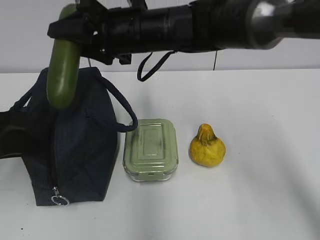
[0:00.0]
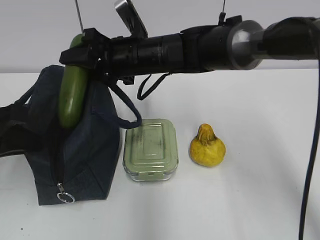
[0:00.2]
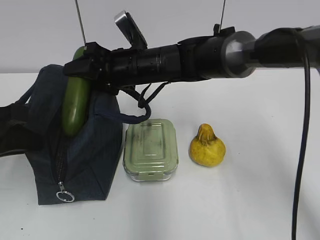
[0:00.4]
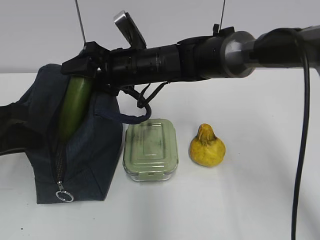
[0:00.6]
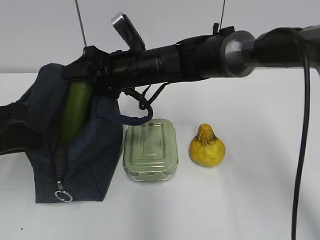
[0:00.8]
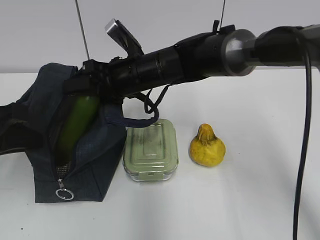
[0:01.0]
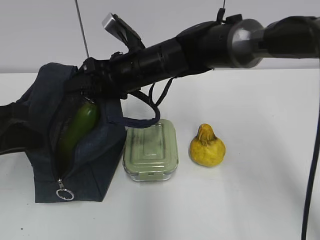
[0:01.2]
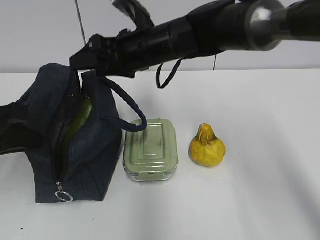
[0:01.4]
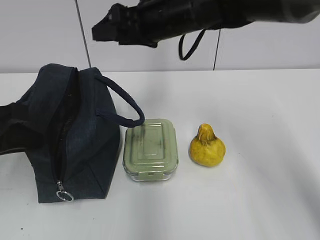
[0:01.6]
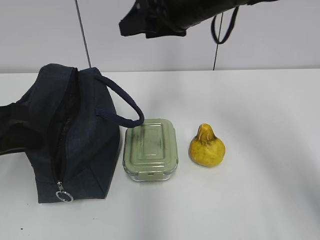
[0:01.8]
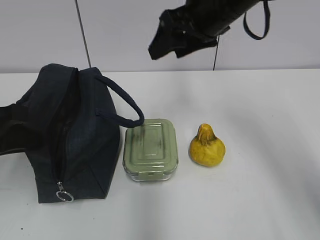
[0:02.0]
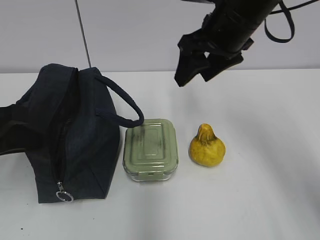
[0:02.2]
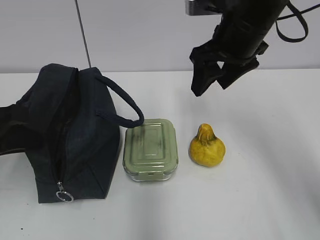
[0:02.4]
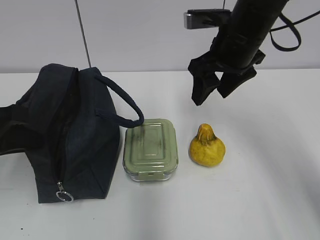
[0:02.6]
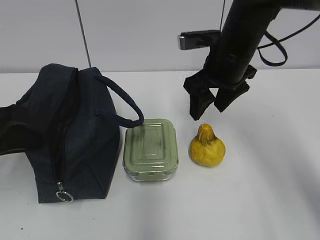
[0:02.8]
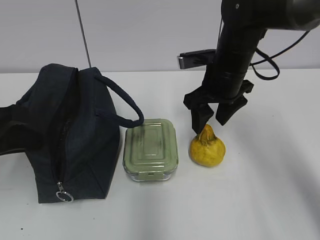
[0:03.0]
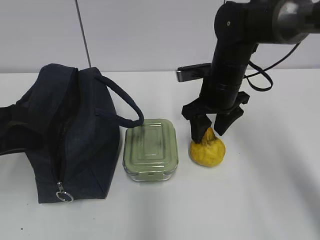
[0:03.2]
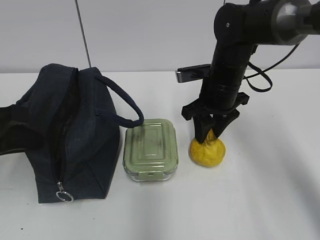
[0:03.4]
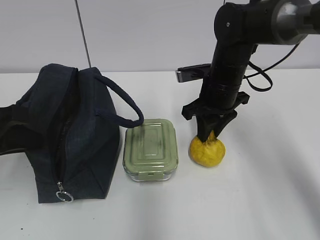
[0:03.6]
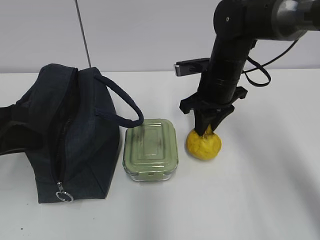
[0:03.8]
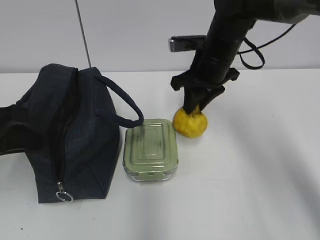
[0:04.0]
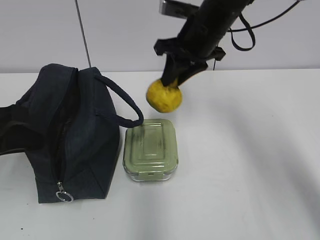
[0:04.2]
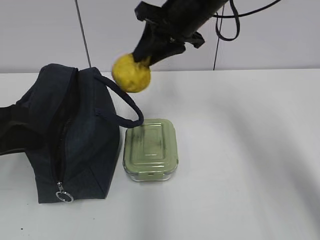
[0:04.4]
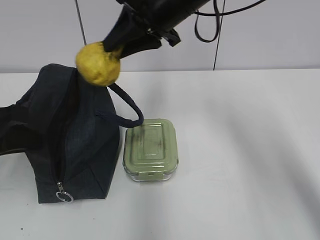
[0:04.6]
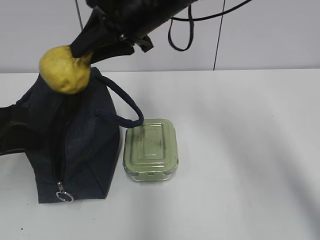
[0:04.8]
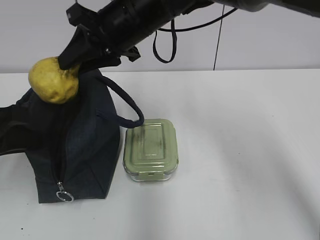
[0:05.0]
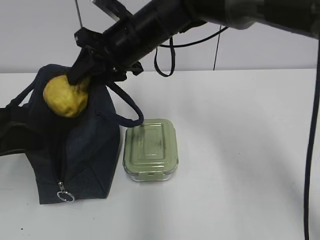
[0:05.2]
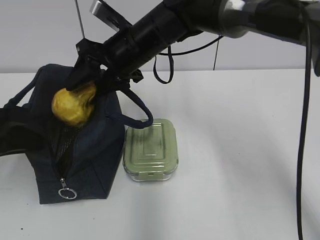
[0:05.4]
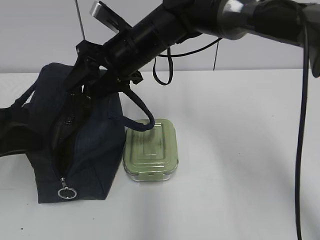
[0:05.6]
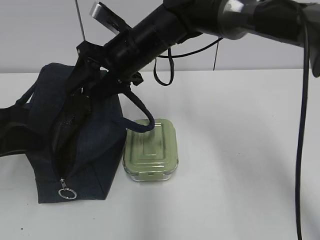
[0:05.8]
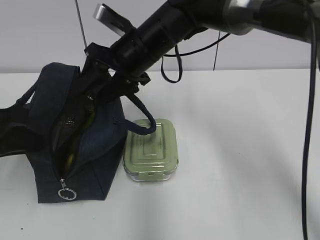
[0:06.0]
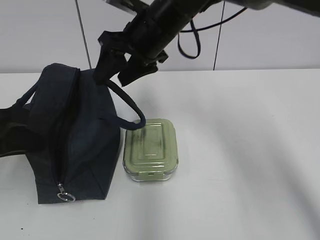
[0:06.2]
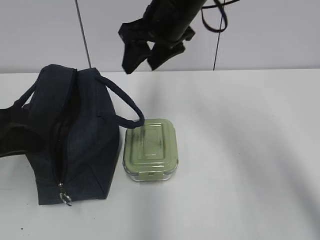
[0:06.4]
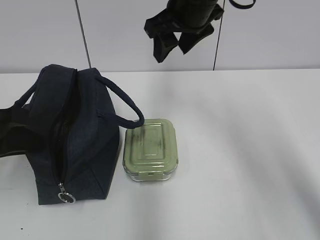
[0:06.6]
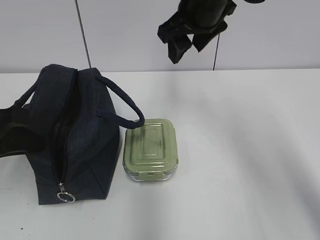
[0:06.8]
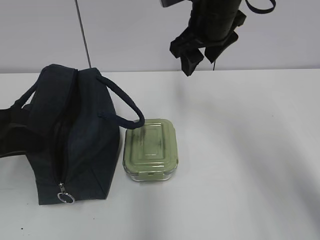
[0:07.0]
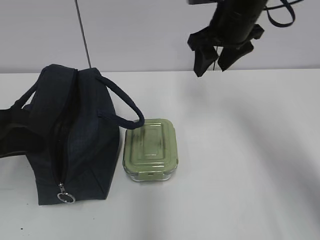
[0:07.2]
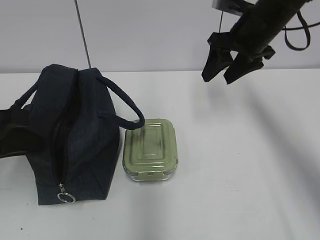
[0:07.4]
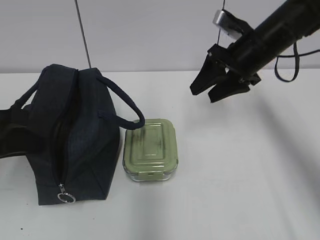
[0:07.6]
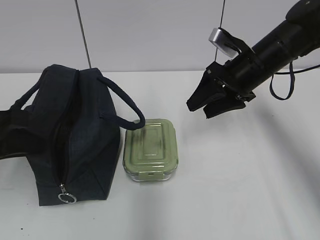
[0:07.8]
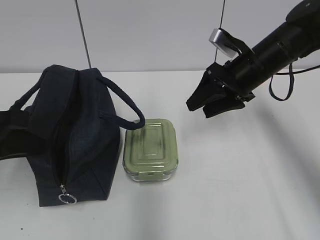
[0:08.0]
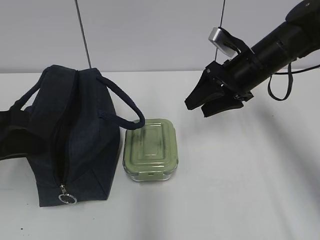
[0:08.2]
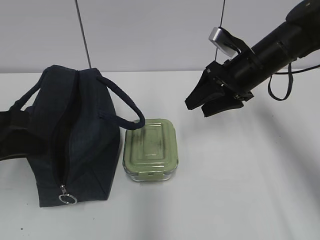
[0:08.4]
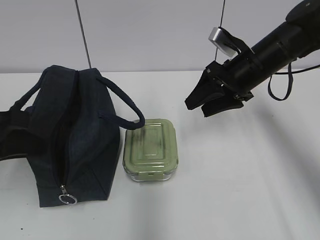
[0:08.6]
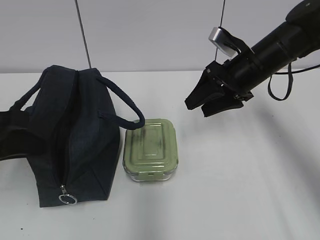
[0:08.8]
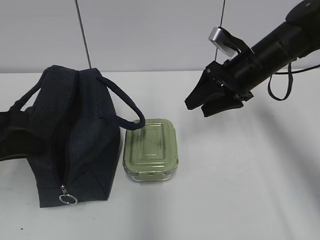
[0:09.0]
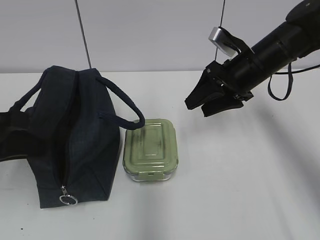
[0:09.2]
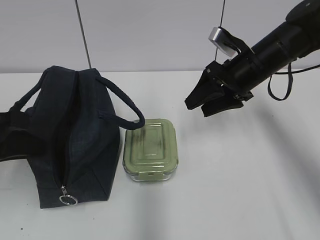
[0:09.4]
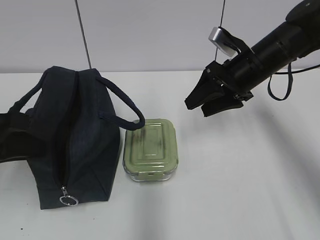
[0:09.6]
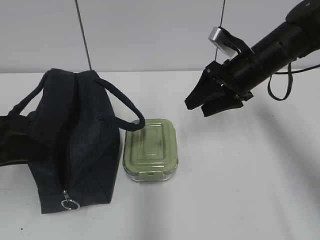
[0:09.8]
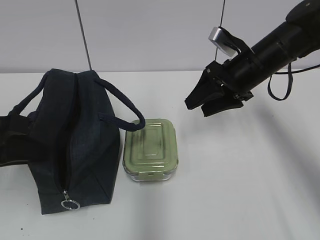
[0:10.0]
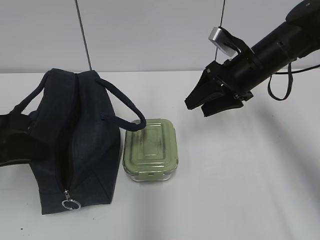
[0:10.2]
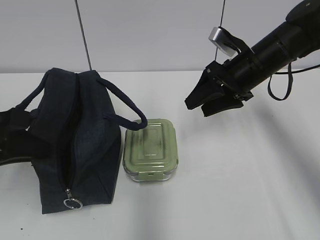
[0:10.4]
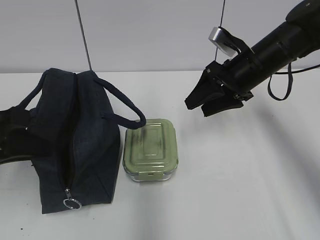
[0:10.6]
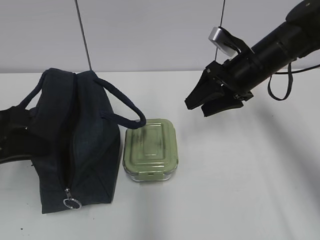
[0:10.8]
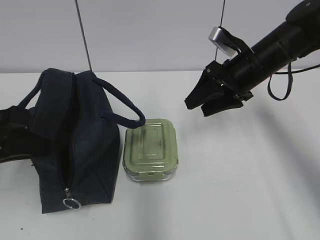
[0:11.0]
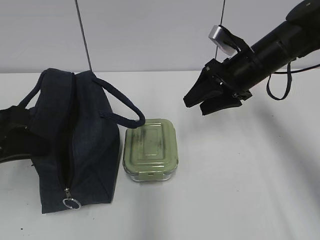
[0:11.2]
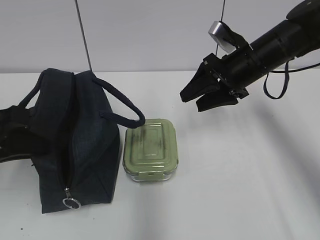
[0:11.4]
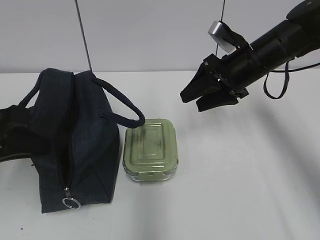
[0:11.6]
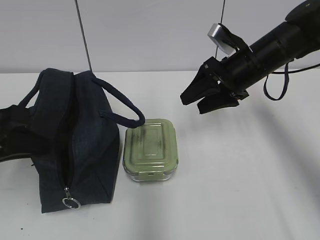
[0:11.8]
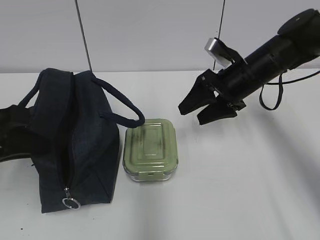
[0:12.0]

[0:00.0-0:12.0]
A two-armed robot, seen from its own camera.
Step, 0:00.4 to 0:01.2: Place it into the bag with your right hand.
Step, 0:01.6 to 0:03.6: Grab the pear with your right hand.
Step, 0:03.8 to 0:05.4: Place it into the bag with your right hand.
0:00.0 to 0:01.6: The right gripper goes approximately 5 cm to the right, and travels downward and back again, roughly 5 cm each way.
0:01.6 to 0:03.0: The right gripper heads downward and to the right, covering approximately 10 cm.
0:03.0 to 0:04.4: The right gripper travels upward and to the left by approximately 10 cm, and closes up.
0:04.4 to 0:06.0: The right gripper is displaced to the left and downward by roughly 10 cm, and opens up.
0:06.0 to 0:07.6: The right gripper moves to the right, some 20 cm.
0:07.6 to 0:09.0: The grippers make only small movements.
0:09.0 to 0:10.4: The two grippers keep their place.
0:10.4 to 0:12.0: There are only small adjustments of the grippers.

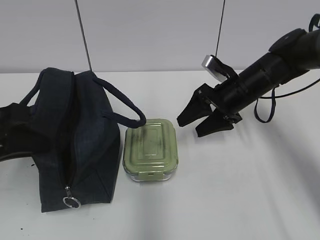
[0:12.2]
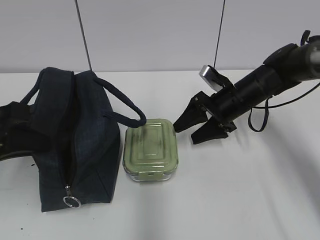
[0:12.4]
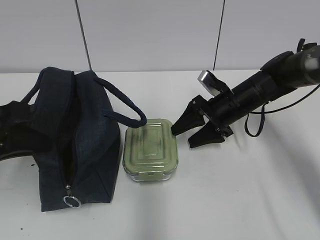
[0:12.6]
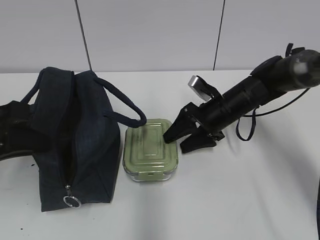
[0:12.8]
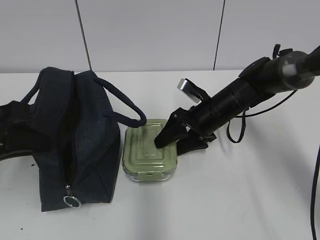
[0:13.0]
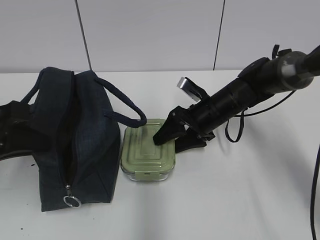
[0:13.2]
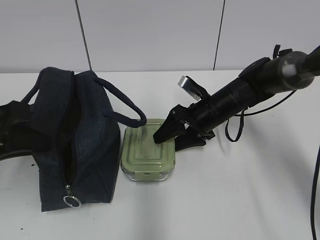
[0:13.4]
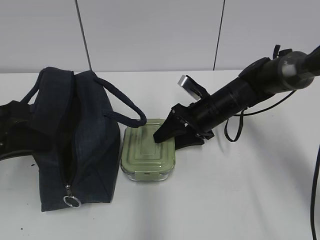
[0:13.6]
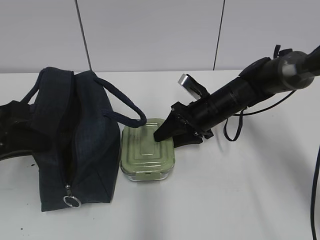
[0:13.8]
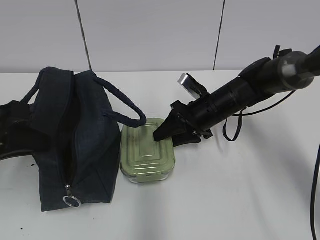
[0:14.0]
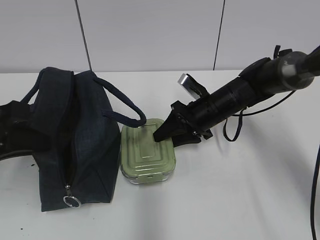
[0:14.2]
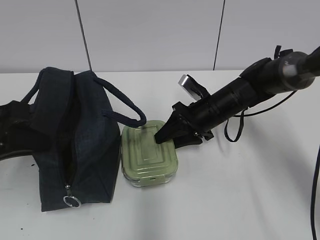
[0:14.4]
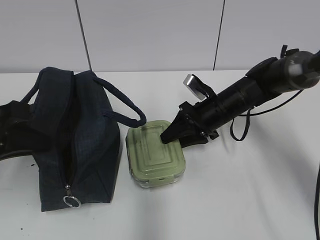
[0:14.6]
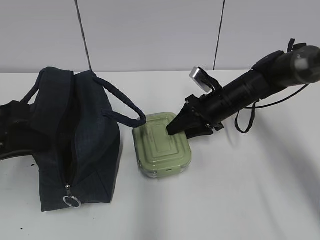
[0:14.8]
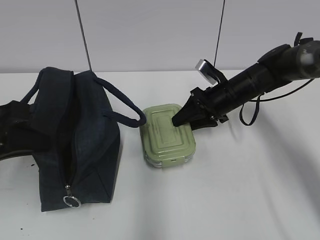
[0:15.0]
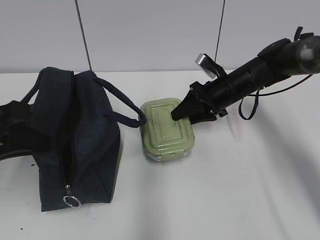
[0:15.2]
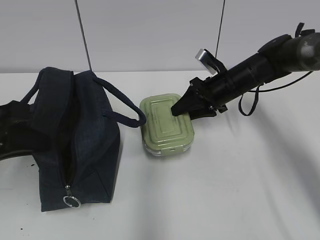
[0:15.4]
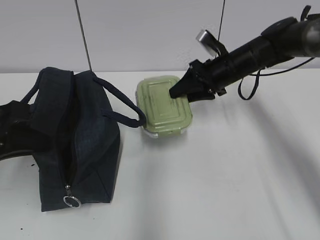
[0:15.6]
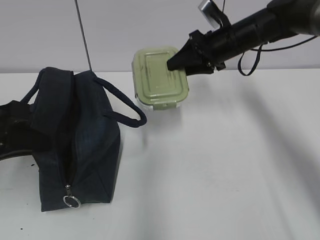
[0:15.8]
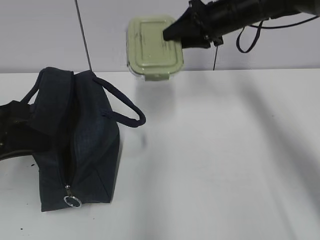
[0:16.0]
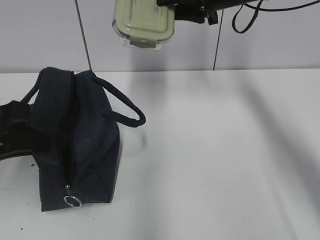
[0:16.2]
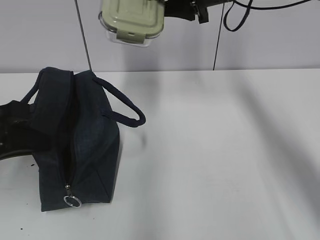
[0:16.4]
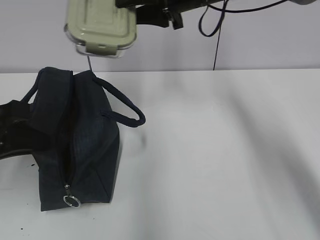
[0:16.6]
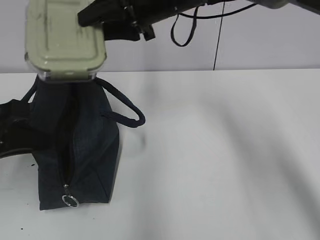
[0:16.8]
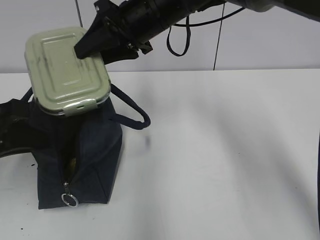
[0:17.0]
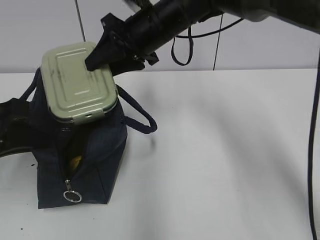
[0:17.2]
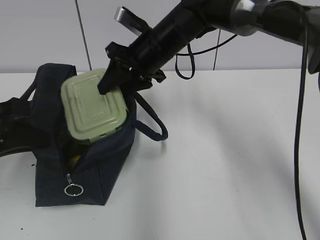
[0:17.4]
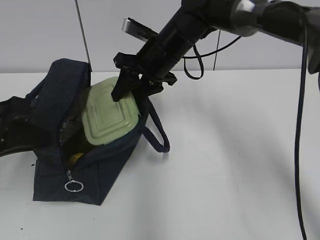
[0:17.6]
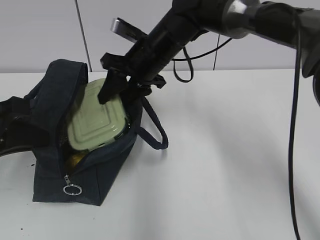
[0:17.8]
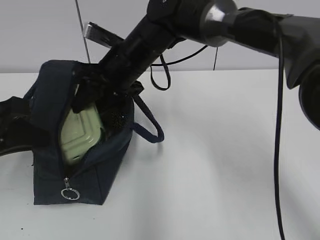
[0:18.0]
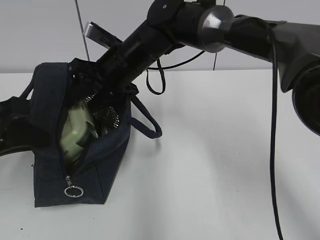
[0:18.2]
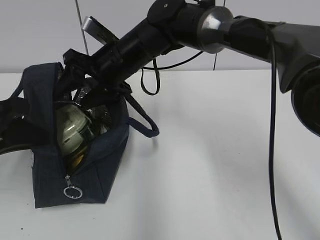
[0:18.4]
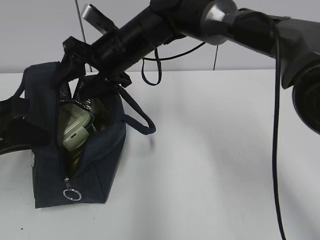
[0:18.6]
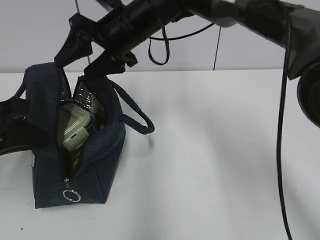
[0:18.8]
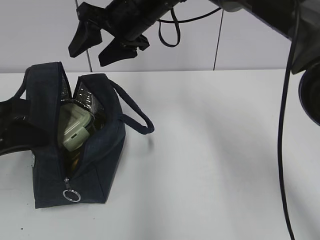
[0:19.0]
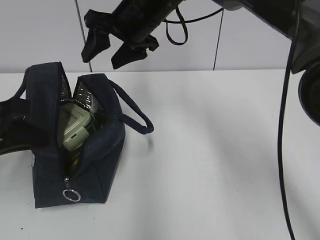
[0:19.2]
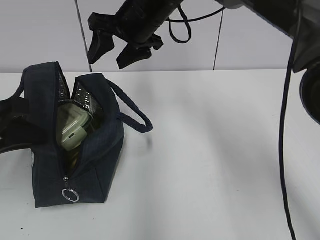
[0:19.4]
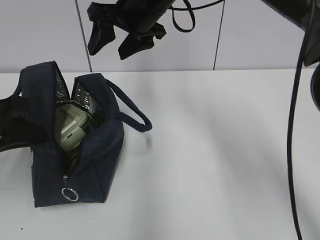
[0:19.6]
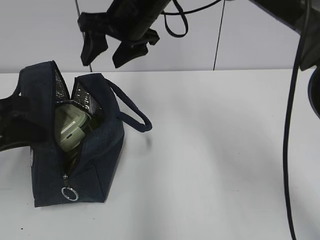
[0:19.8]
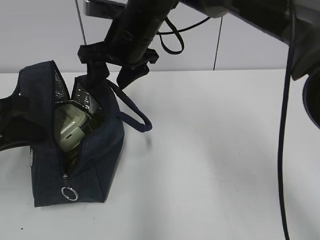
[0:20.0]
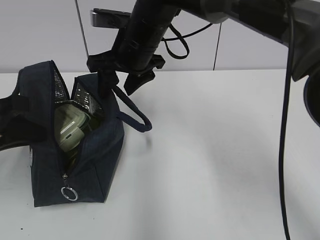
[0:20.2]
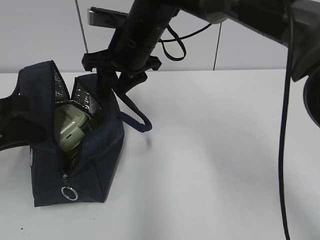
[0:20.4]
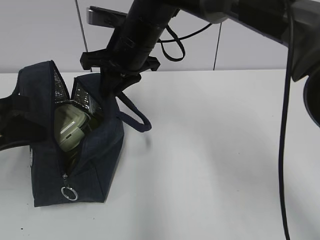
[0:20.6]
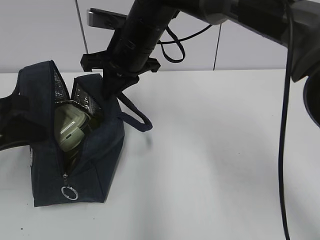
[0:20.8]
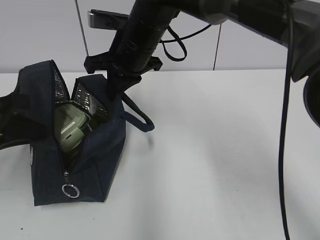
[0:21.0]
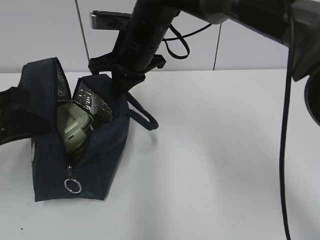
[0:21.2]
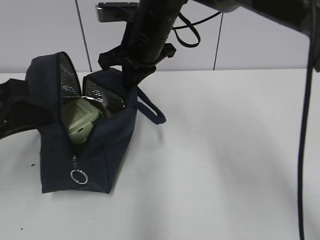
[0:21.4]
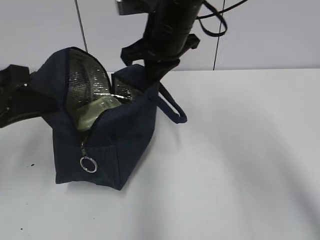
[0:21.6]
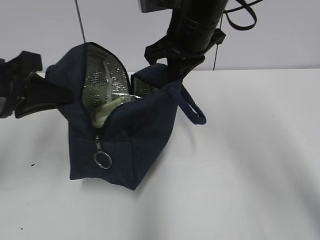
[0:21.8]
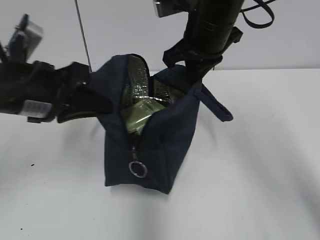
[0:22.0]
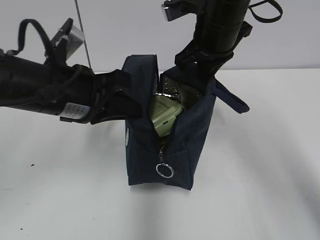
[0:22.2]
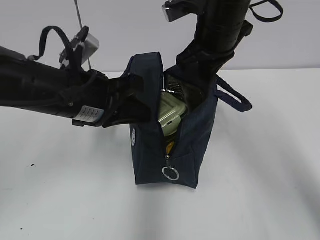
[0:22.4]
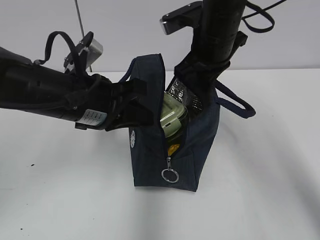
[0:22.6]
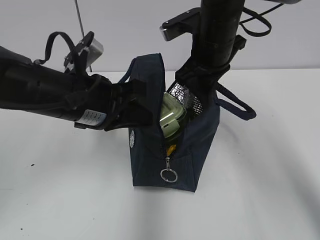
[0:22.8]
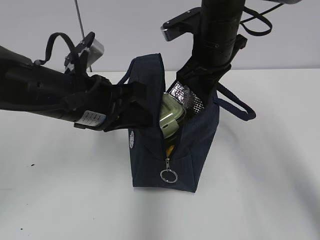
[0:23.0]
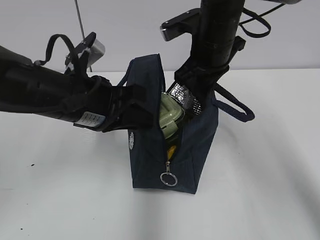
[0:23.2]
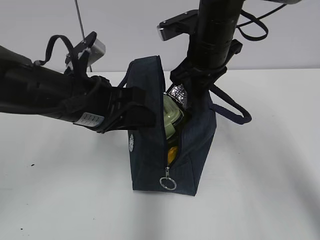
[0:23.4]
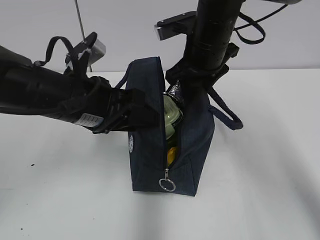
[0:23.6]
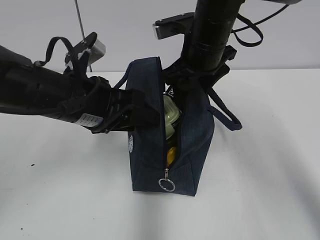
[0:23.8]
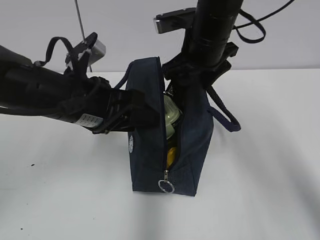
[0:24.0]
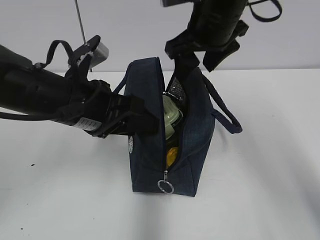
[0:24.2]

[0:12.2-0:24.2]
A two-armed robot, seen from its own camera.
Step, 0:12.2 to 0:14.4: Grab the lunch box with your right hand.
Step, 0:18.4 to 0:21.2: Grab the lunch bag with your right hand.
Step, 0:21.4 to 0:24.0: Move the lunch bag to the right.
0:12.2 to 0:13.8: The right gripper moves about 5 cm.
0:13.8 to 0:15.2: The right gripper changes place by some 5 cm.
0:15.2 to 0:16.6: The right gripper heads upward and to the left, covering some 20 cm.
0:16.6 to 0:18.2: The right gripper goes approximately 15 cm to the left and downward.
0:18.2 to 0:19.8: The right gripper travels upward by about 10 cm.
0:19.8 to 0:21.2: The right gripper closes.
0:21.2 to 0:22.6: The left gripper is displaced to the right and forward by roughly 15 cm. The right gripper is displaced to the right by about 10 cm.
0:22.6 to 0:24.2: The right gripper opens its fingers. Meanwhile the left gripper opens.
